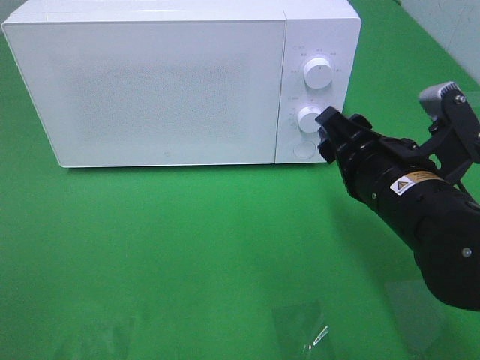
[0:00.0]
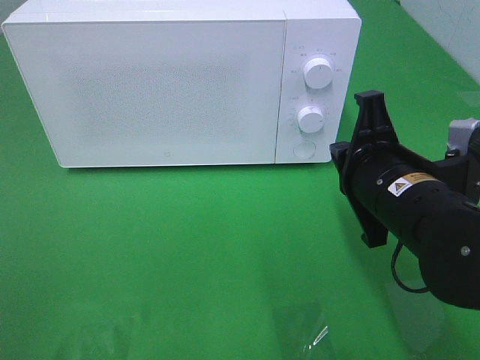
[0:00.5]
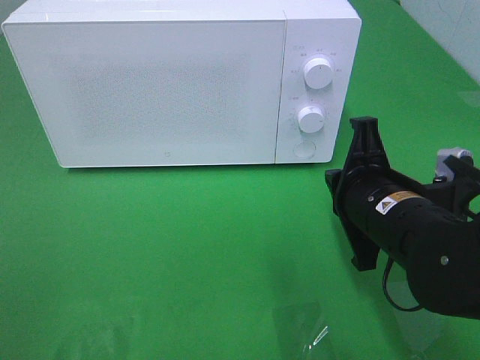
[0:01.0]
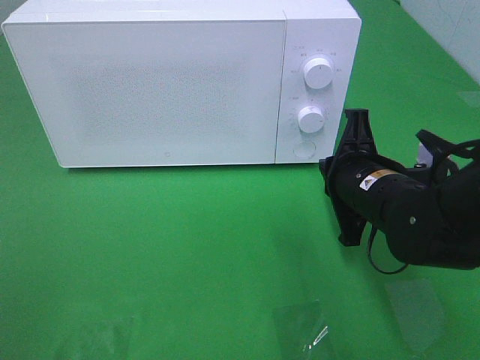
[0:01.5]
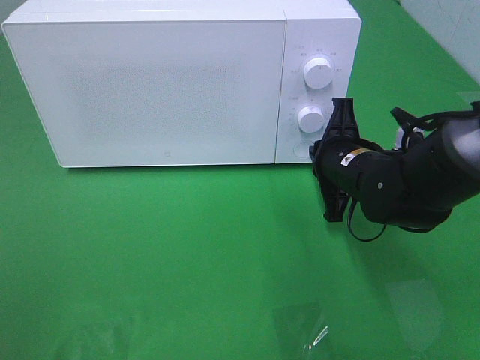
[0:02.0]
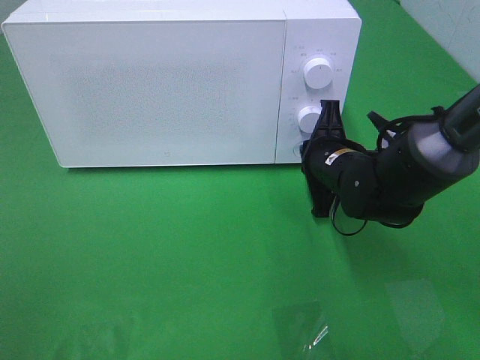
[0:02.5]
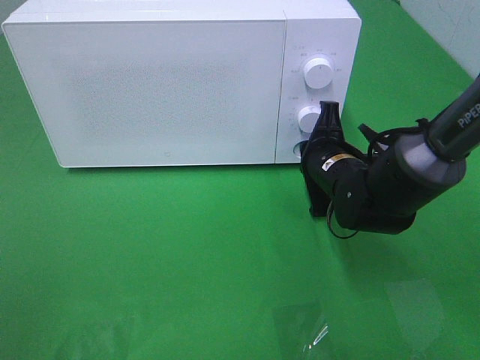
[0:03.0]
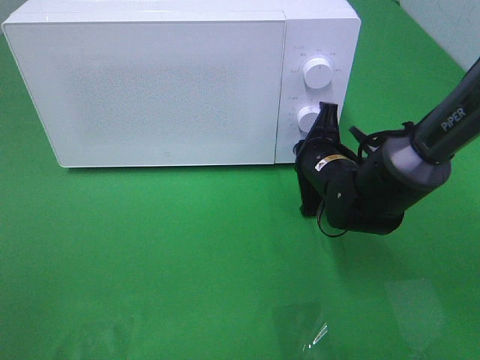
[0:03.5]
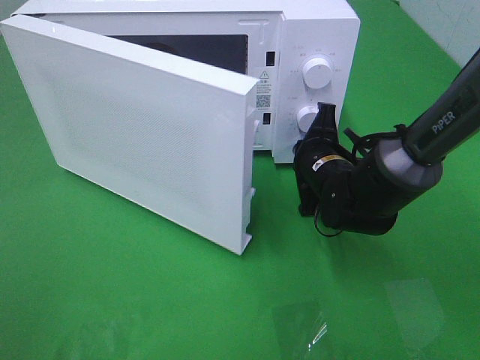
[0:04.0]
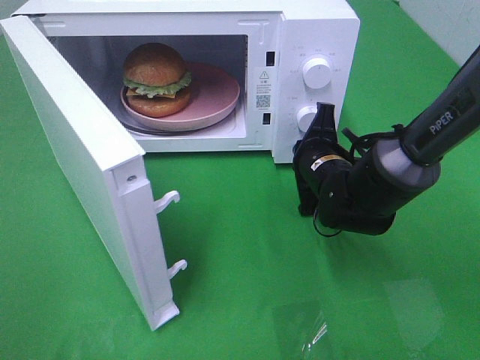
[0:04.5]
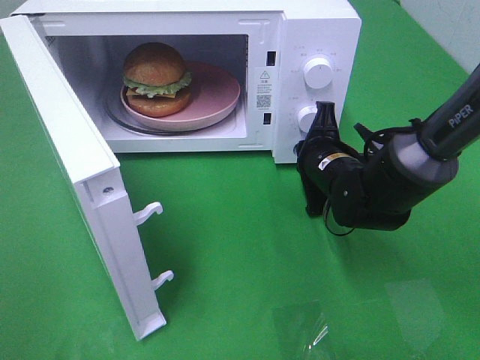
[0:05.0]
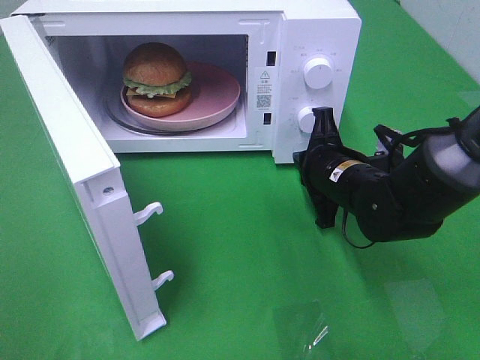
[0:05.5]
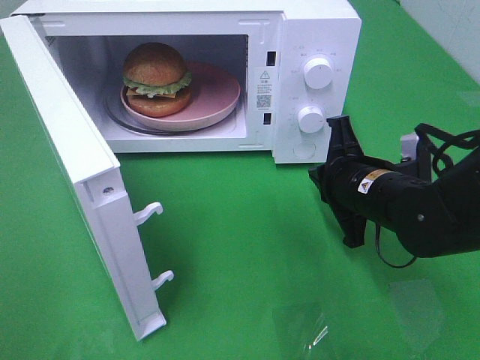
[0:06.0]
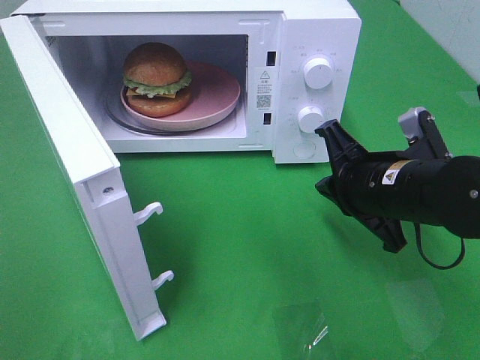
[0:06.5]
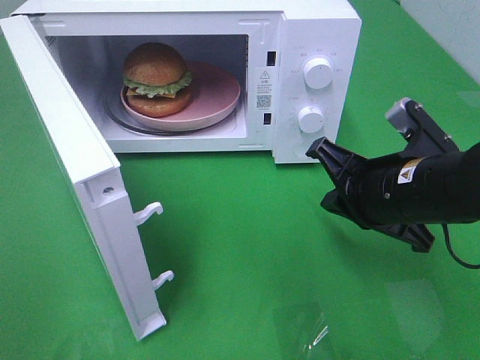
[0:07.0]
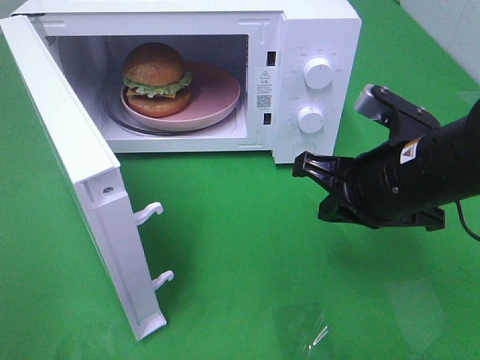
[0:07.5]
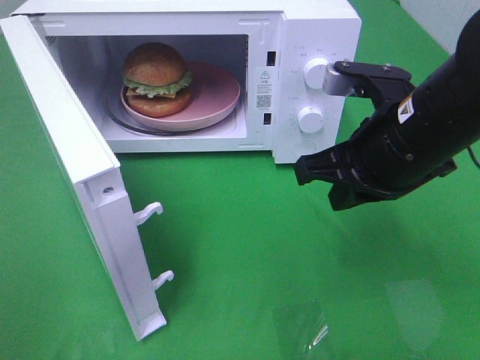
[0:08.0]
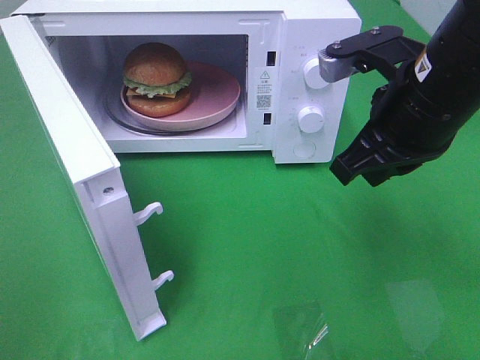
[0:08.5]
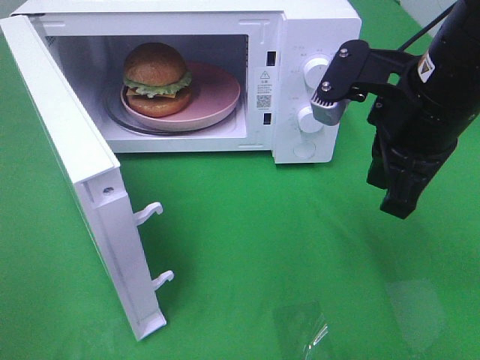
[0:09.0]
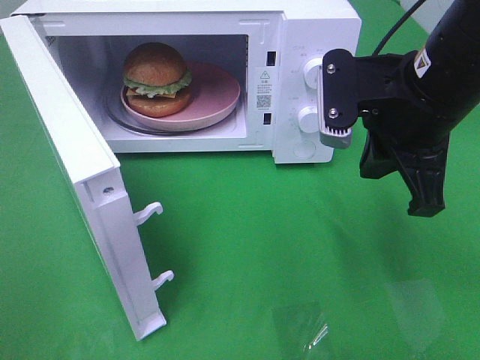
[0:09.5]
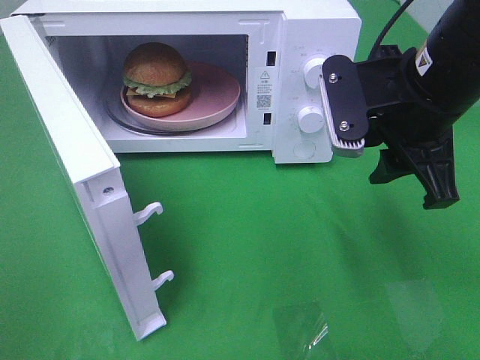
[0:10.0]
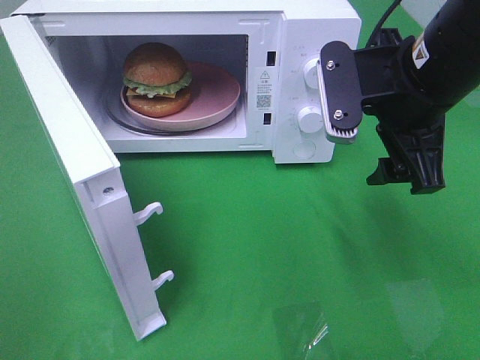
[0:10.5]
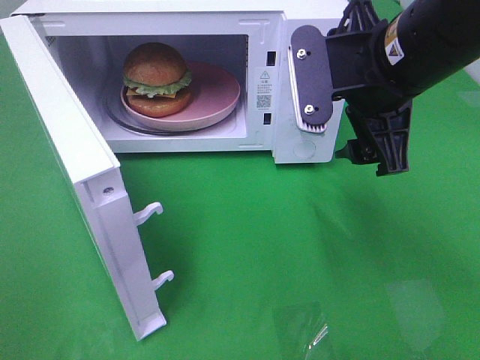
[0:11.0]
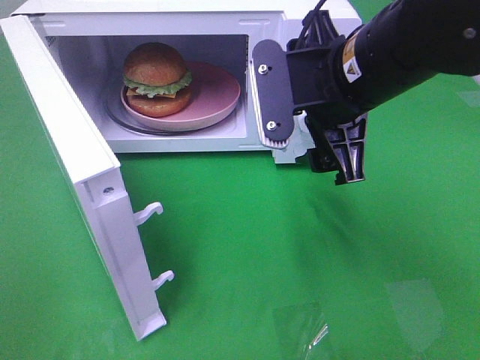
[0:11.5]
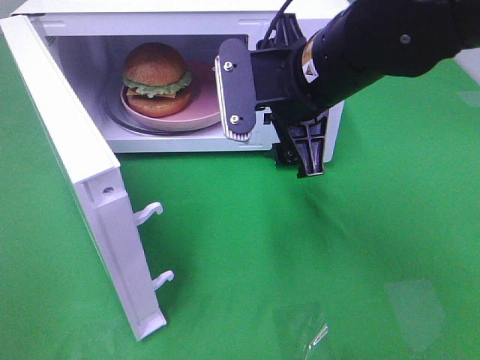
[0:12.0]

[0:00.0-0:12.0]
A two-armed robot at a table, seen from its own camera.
Task of the whole recording: Heat the burger.
Step, 0.0 to 5.0 s: Right hand: press the switch.
0.0 to 2.0 s: The right gripper goes roughly 10 cm forward and downward, and closes its fingers.
2.0 to 4.0 s: The right gripper moves approximately 5 cm.
4.0 to 6.0 s: The right gripper shifts some 5 cm backward.
6.0 to 8.0 s: The right gripper travels upward by roughly 10 cm.
8.0 to 10.0 s: The right gripper opens up.
10.0 to 12.0 s: The right gripper heads to the left, covering about 10 cm, and opens up.

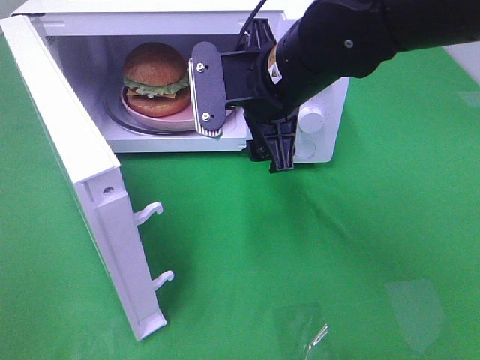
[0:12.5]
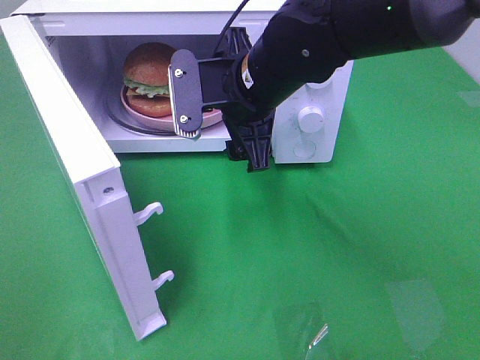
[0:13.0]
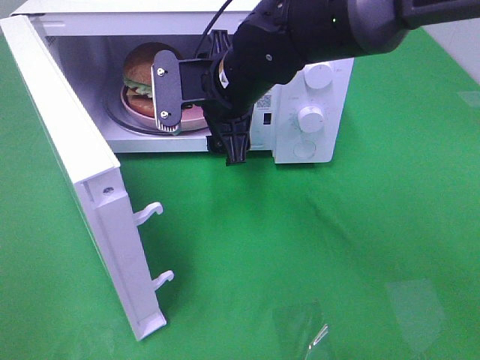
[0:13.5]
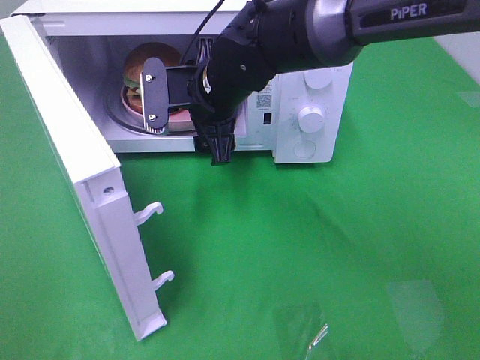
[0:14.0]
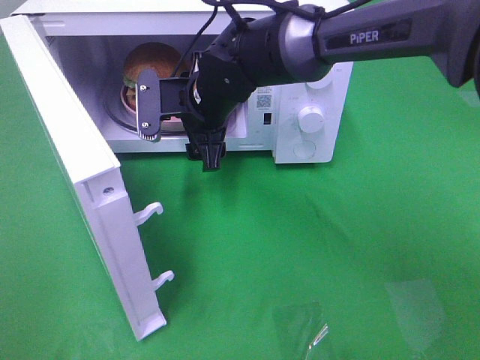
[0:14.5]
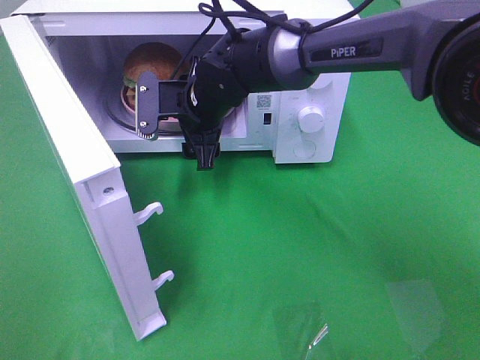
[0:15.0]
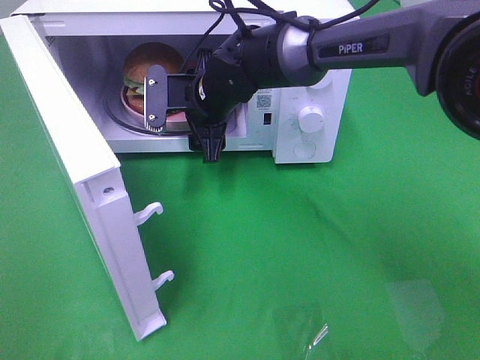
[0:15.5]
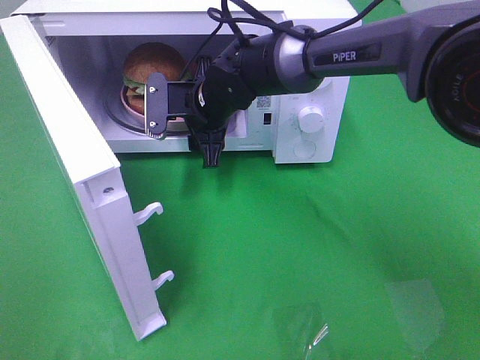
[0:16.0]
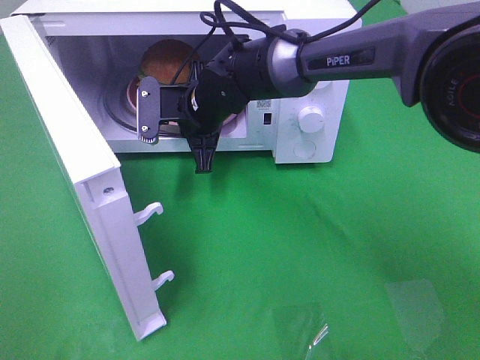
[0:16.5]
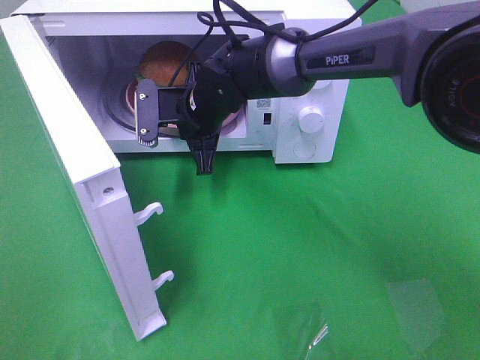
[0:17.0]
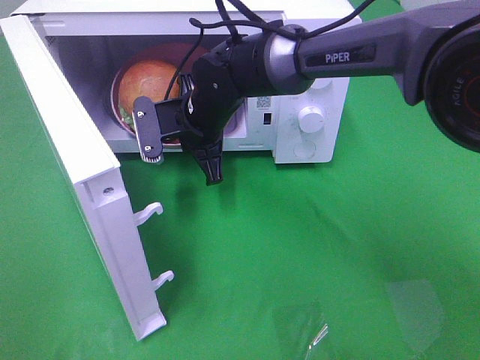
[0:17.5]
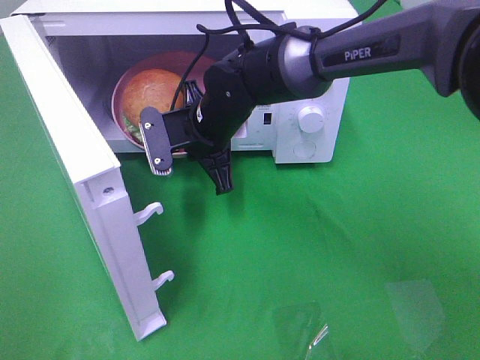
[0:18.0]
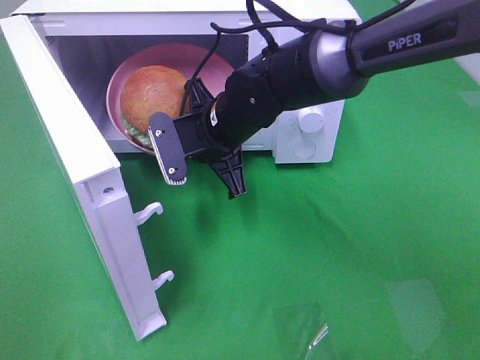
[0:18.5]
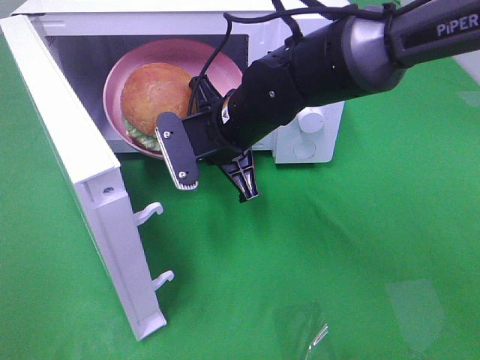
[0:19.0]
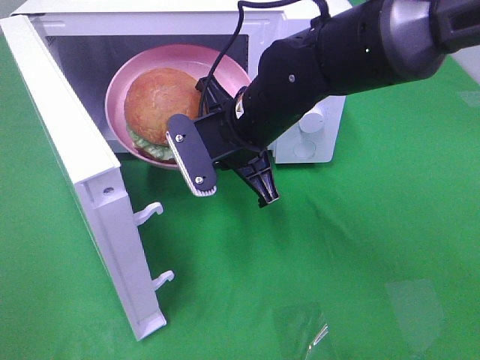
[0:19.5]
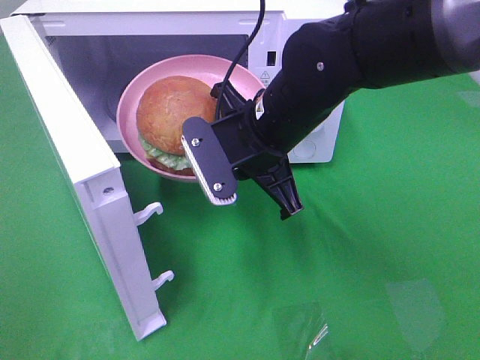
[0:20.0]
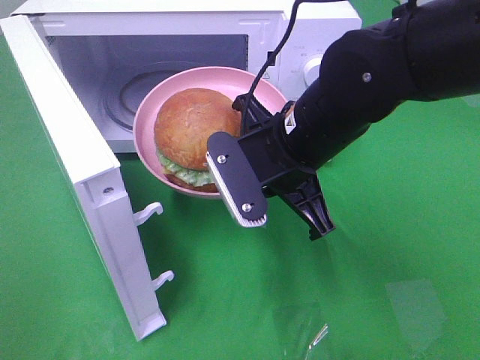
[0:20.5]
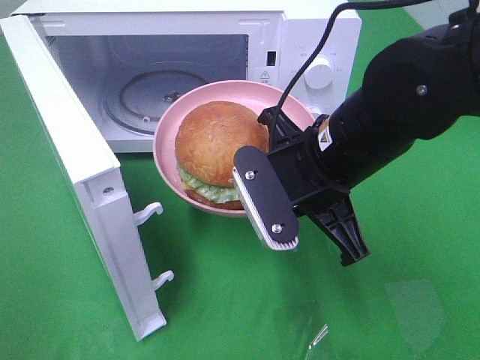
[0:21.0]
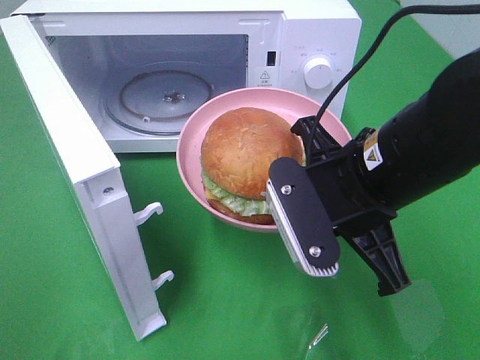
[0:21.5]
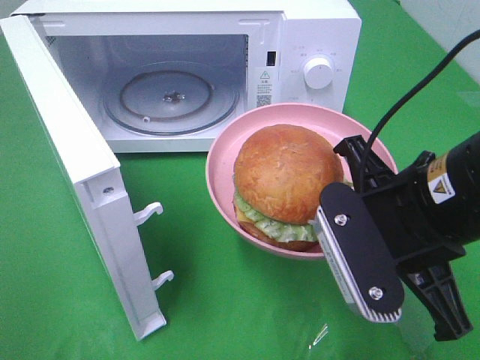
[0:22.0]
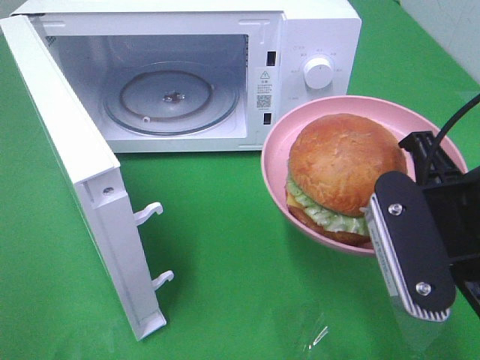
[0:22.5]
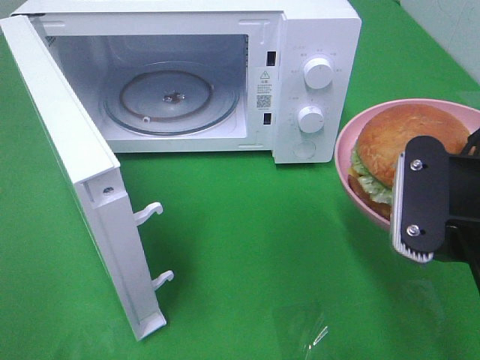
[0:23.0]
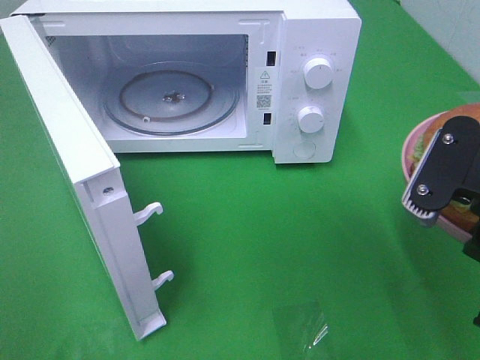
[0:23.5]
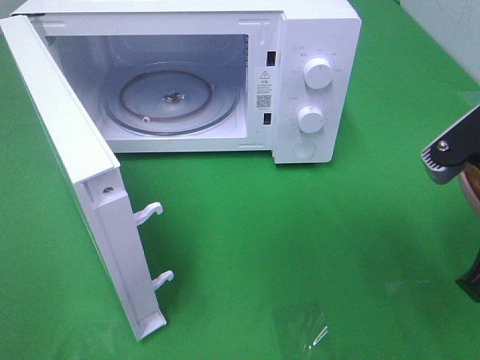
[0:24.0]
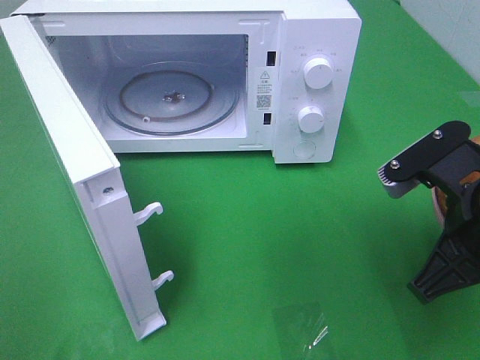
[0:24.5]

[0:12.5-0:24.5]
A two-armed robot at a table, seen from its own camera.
Task of the whole recording: Heat the burger.
Step, 12.5 to 16.5 s: Right hand: grab the plate with the hamburger.
12.5 to 14.5 s: The right gripper heads forward, downward and to the left, covering about 15 cm.
14.5 to 16.5 s: The right gripper closes its fingers.
16.5 to 18.5 s: The right gripper travels backward by roughly 5 cm.
18.5 to 20.5 s: The right gripper moves backward and to the right, approximately 10 cm.
20.5 to 22.5 s: The right gripper shifts roughly 15 cm backward and to the right.

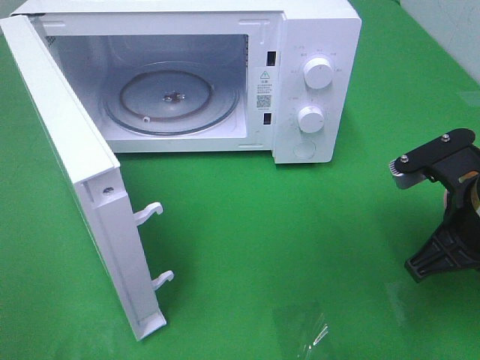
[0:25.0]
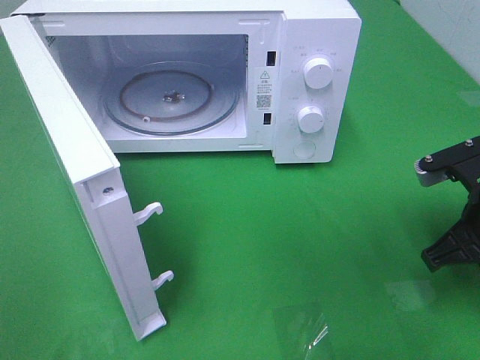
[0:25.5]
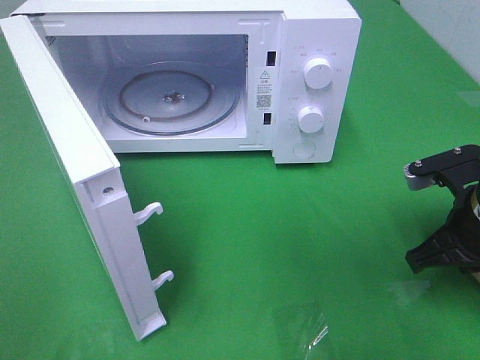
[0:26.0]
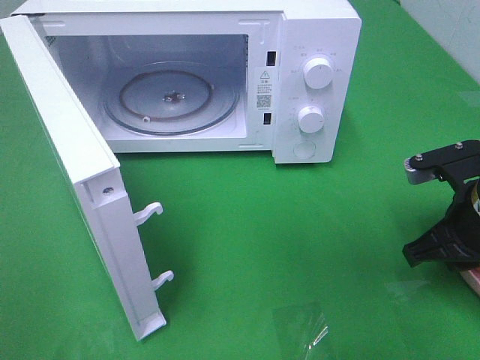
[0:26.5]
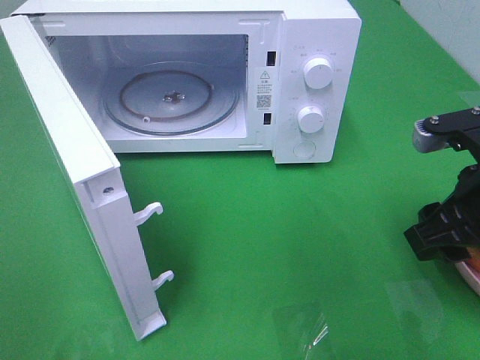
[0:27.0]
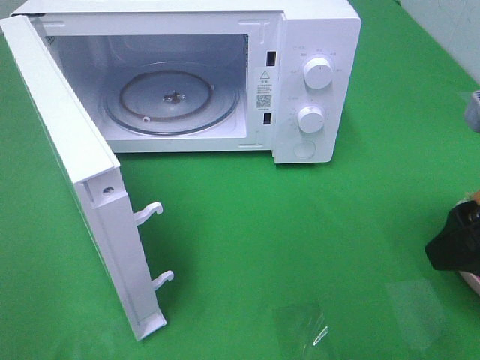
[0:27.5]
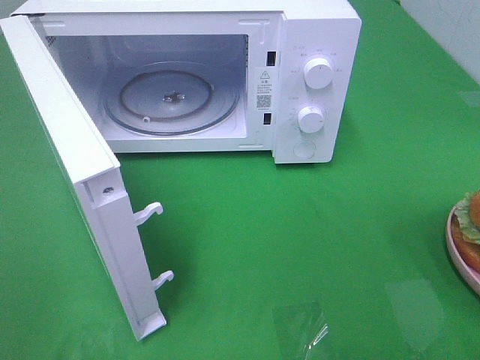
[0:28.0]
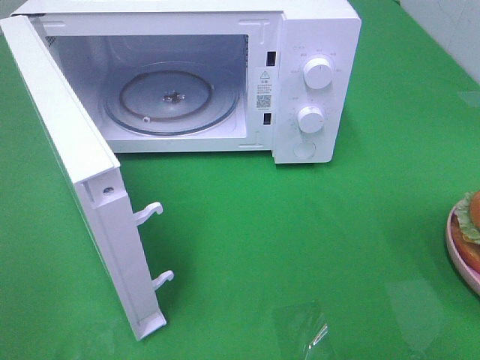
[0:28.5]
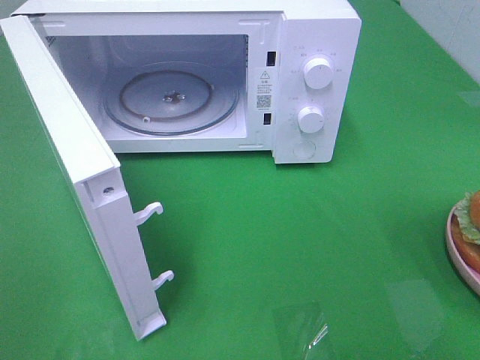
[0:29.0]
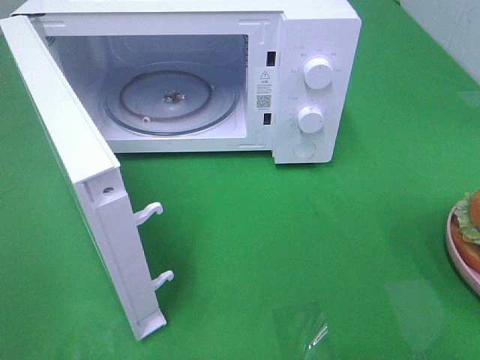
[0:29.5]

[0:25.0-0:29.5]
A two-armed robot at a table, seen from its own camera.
Task of the whole recording: Heat the burger.
25.0 to 27.0 s: The right gripper opens its fingers.
27.0 to 29.5 s: The right gripper shifts approximately 25 cm backward and upward.
